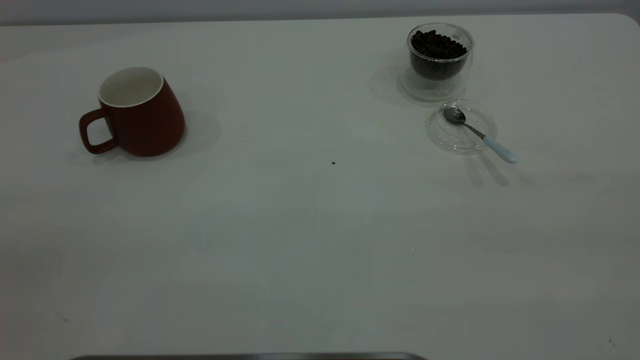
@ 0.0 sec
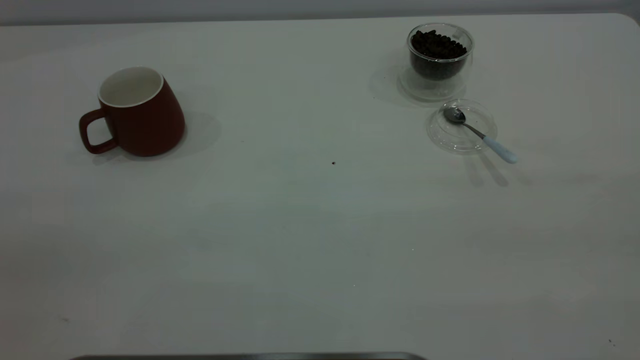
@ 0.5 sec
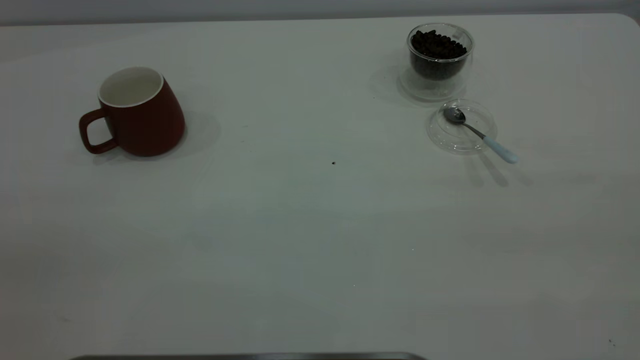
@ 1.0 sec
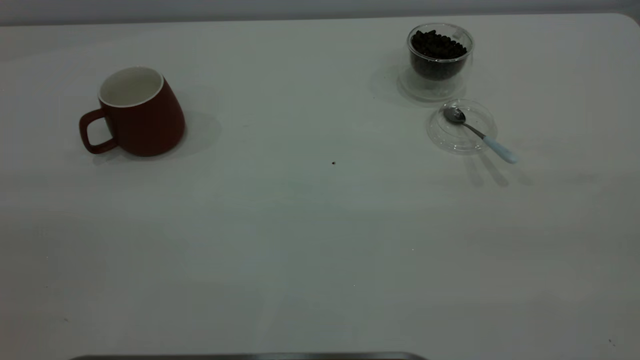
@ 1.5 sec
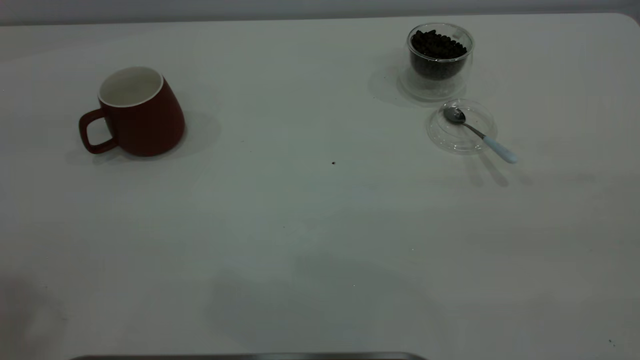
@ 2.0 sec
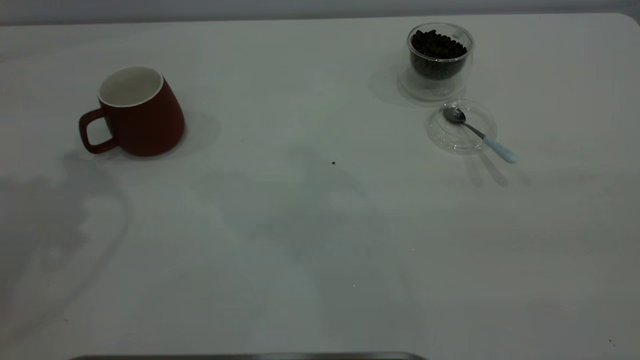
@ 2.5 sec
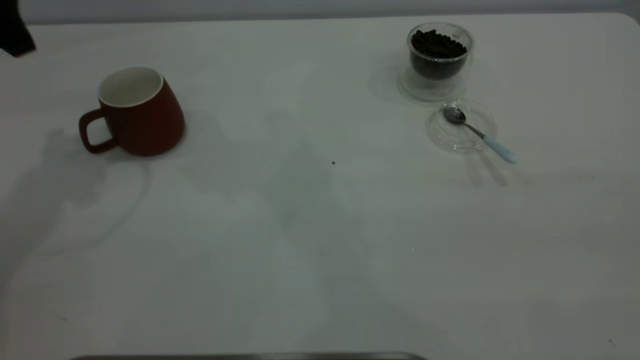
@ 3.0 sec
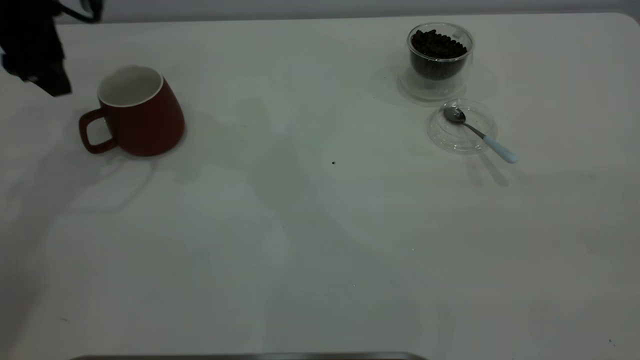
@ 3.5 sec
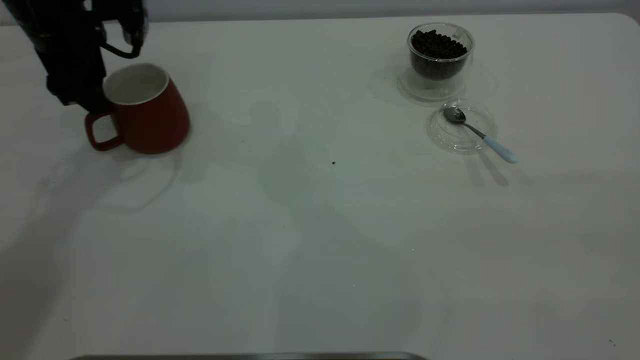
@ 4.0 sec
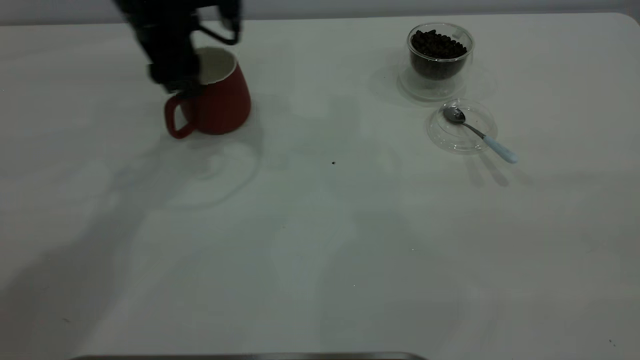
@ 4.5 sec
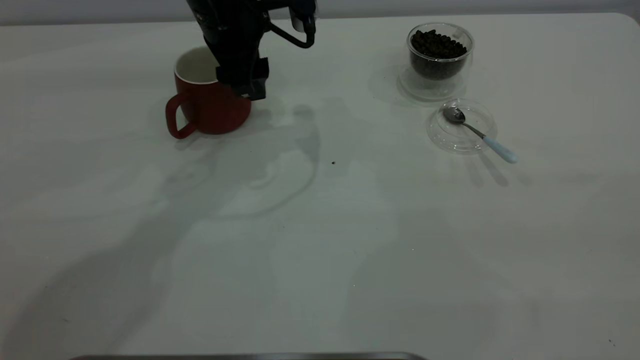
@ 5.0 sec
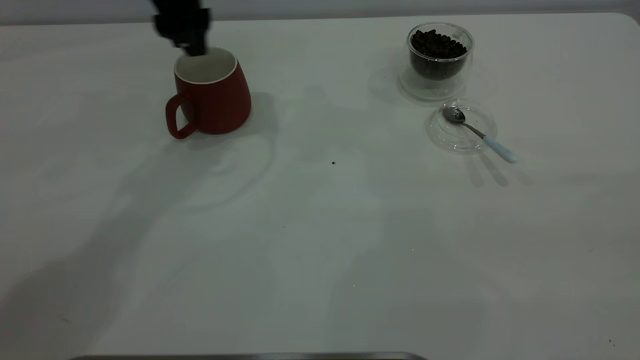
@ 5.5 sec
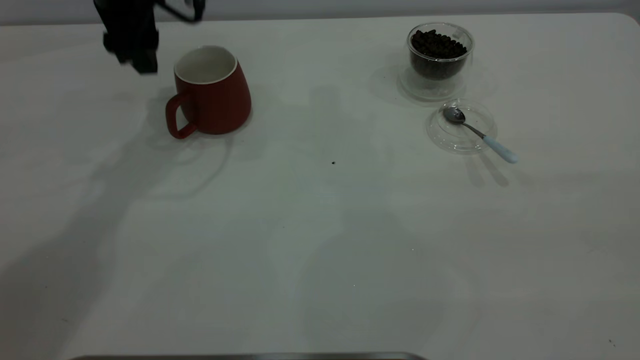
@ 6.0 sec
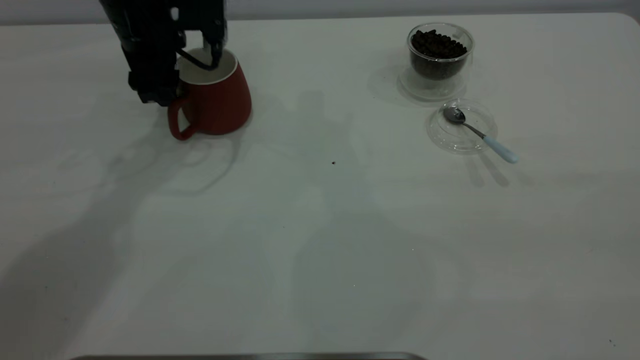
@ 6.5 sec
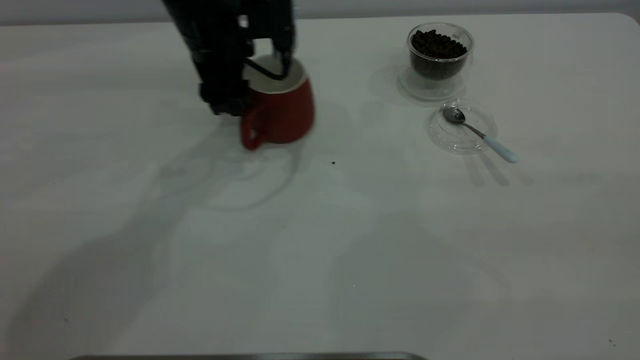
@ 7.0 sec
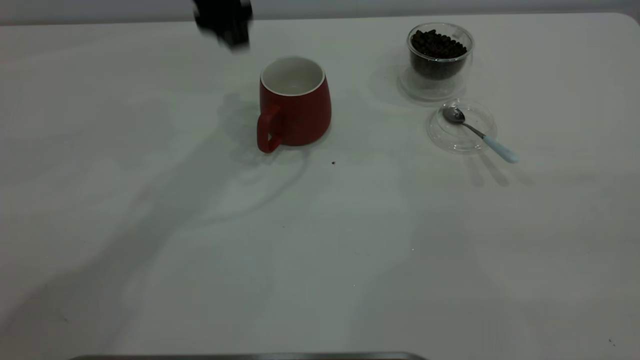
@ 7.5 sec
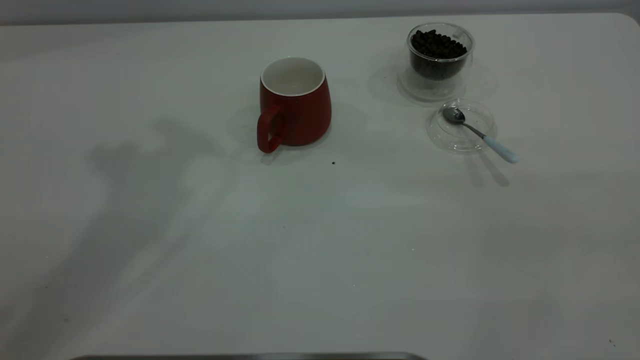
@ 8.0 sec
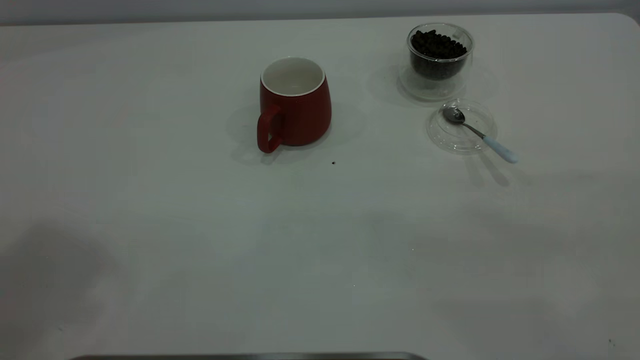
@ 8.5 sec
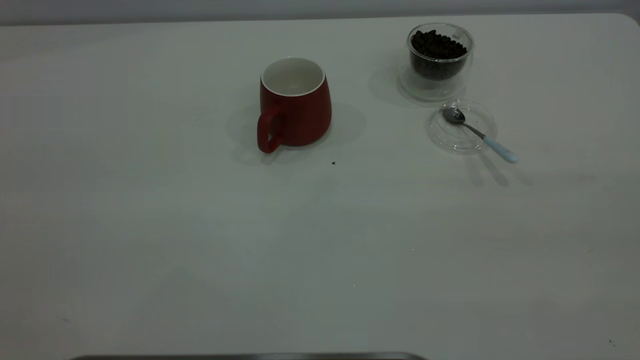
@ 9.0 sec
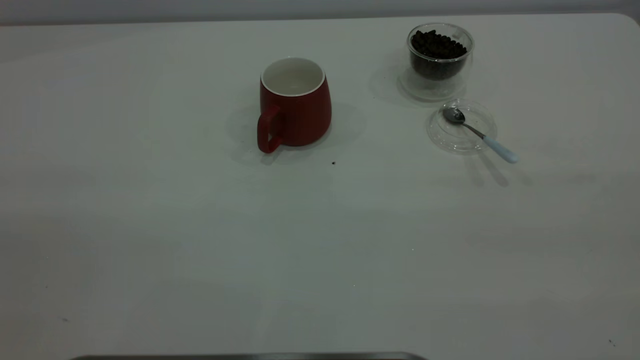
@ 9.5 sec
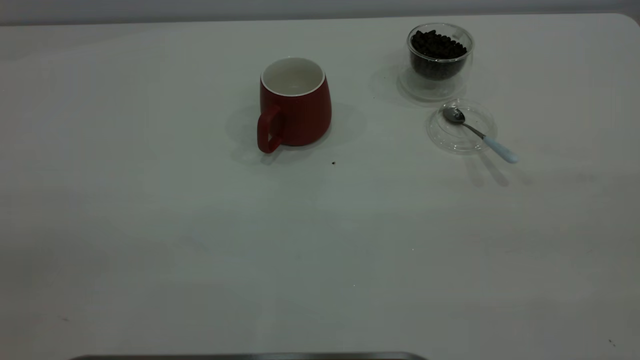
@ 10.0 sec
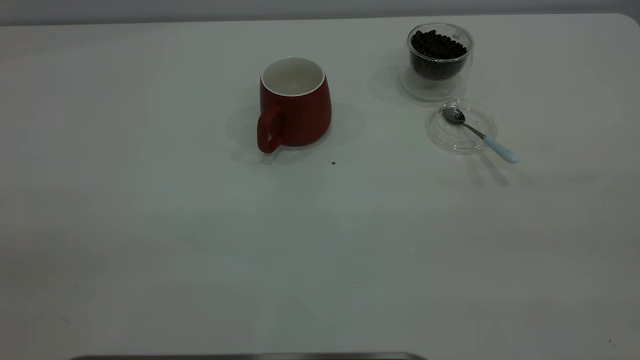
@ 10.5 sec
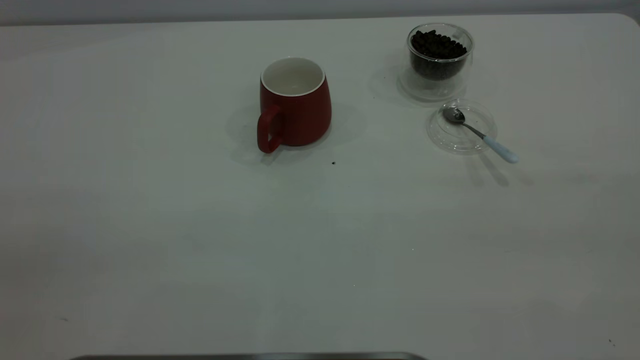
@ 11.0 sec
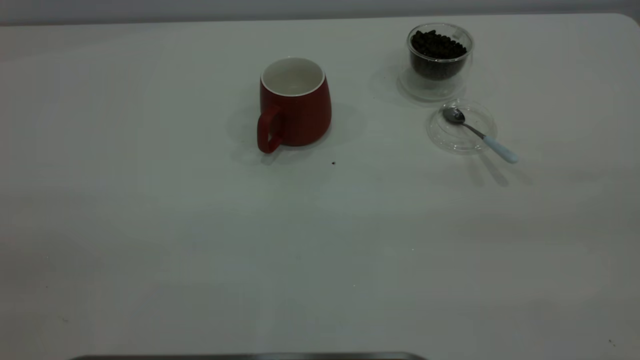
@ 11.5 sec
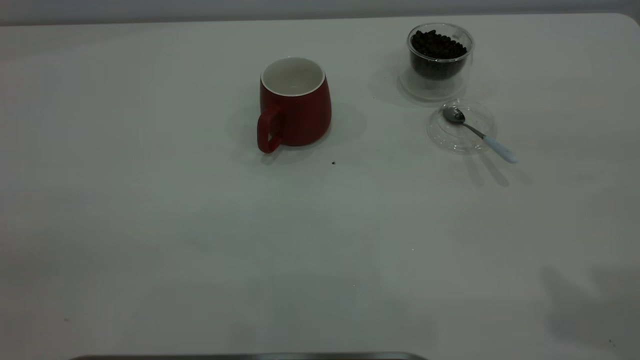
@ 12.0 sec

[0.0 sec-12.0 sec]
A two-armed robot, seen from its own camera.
Task of the whole recording: the left gripper place the red cup in the center of the table, the right gripper take the blue spoon from the cup lid and scoop out the coffee beans from the coffee cup and put them into the red cup, the right gripper put the spoon back into the cup lid.
Step, 0.0 sec to 7.0 sec: Move the cup to the center of view.
2.0 sec to 4.0 sec: The left gripper shifts about 35 cm forward and downward.
4.0 sec to 6.0 sec: The left gripper goes roughly 5 cm to the right.
6.0 sec to 8.0 sec: The left gripper goes about 30 cm upward and backward.

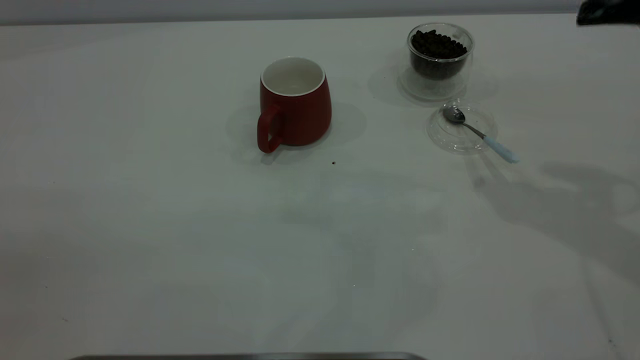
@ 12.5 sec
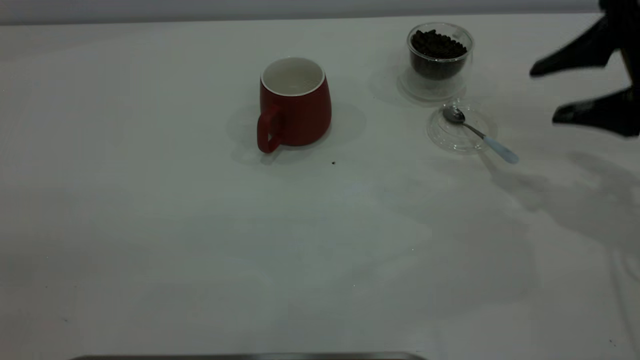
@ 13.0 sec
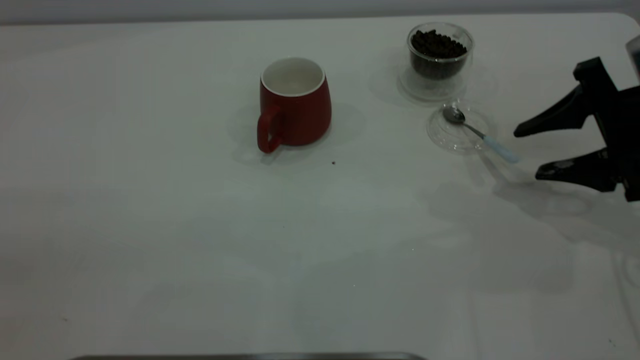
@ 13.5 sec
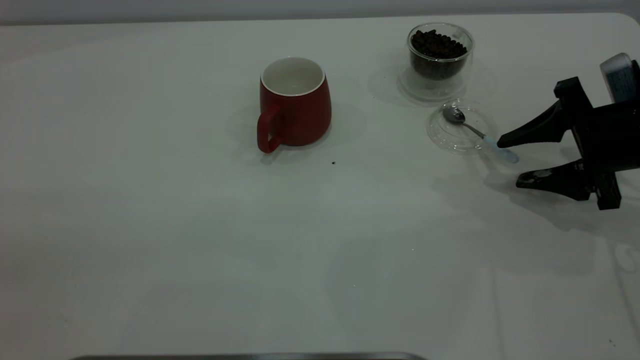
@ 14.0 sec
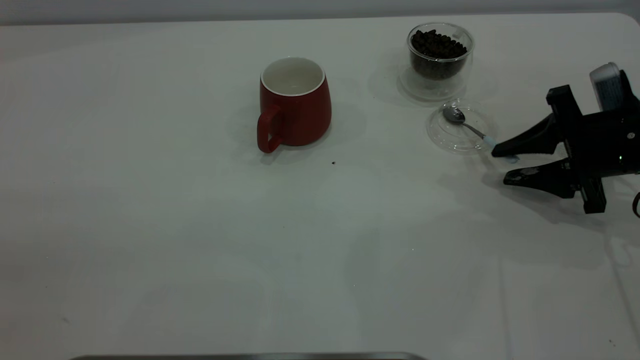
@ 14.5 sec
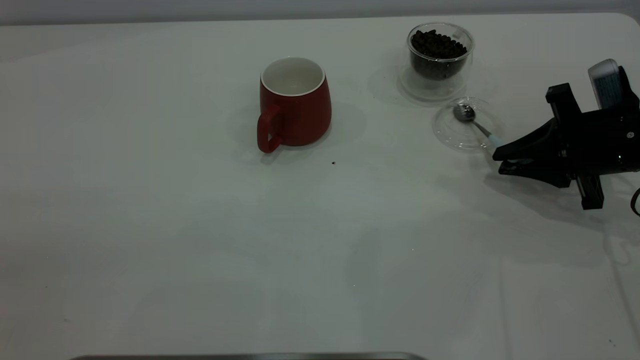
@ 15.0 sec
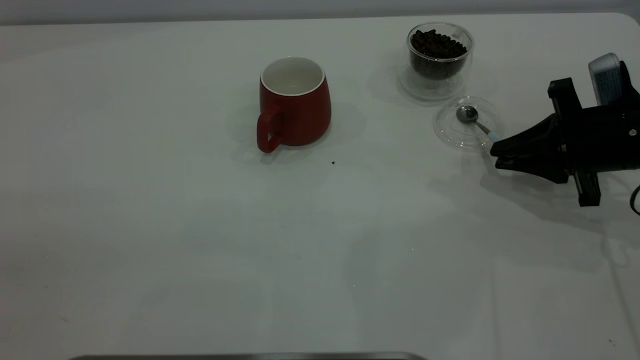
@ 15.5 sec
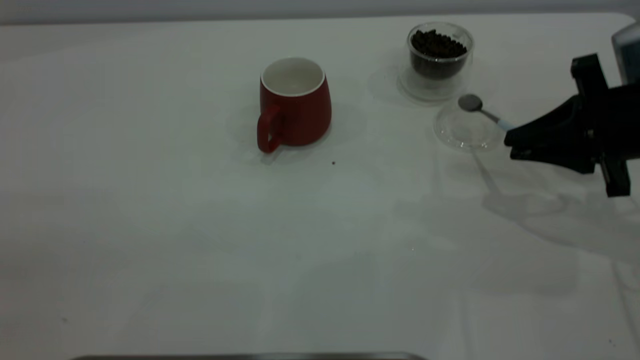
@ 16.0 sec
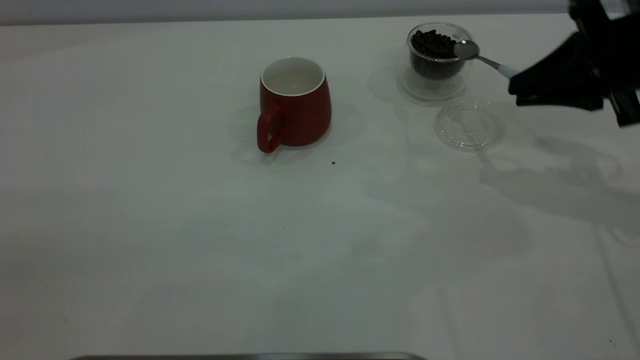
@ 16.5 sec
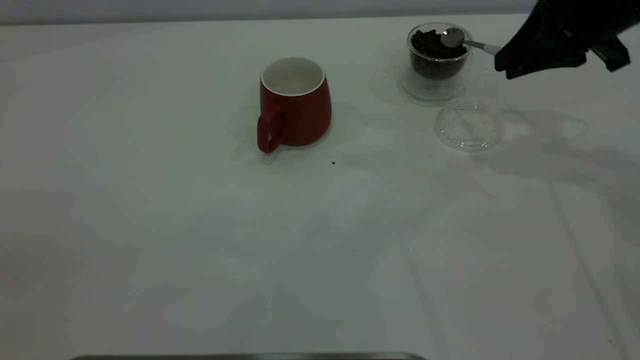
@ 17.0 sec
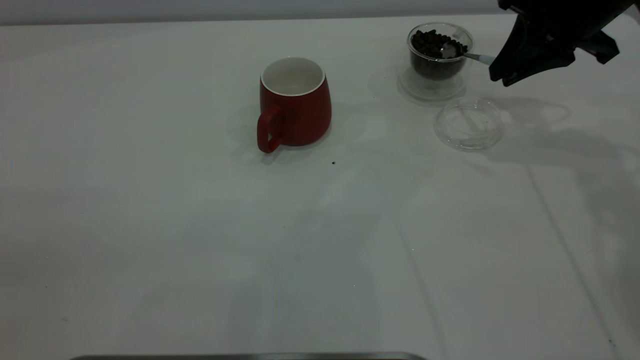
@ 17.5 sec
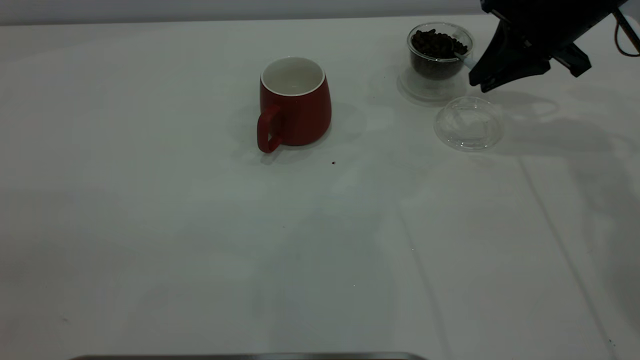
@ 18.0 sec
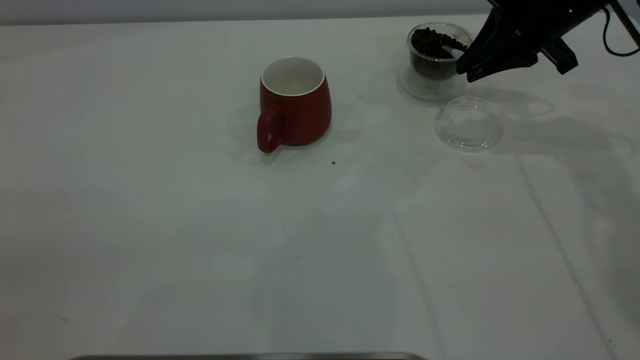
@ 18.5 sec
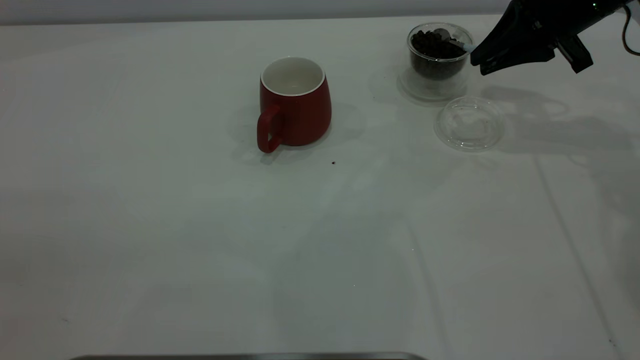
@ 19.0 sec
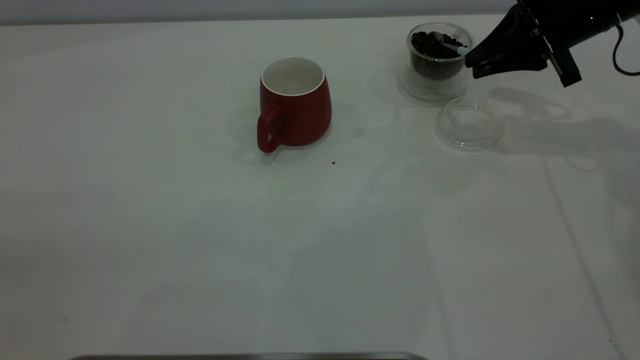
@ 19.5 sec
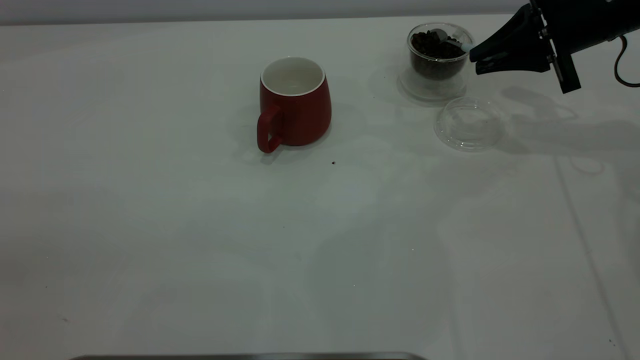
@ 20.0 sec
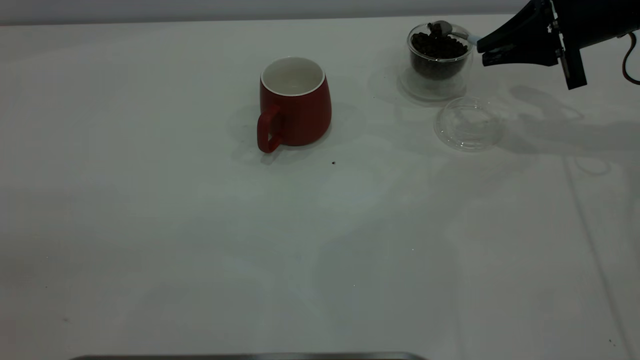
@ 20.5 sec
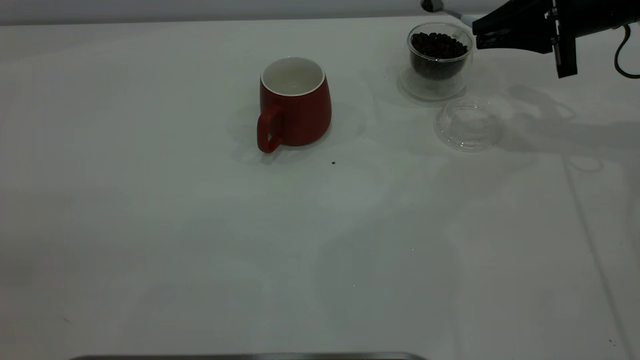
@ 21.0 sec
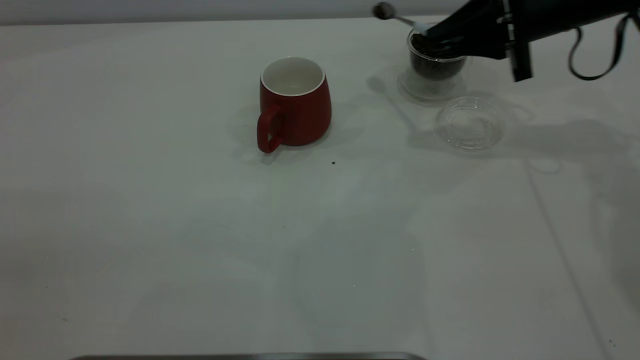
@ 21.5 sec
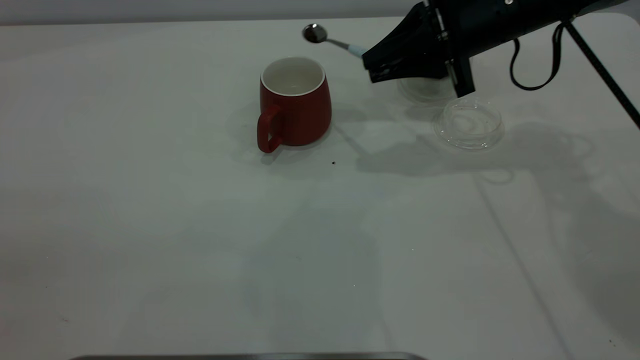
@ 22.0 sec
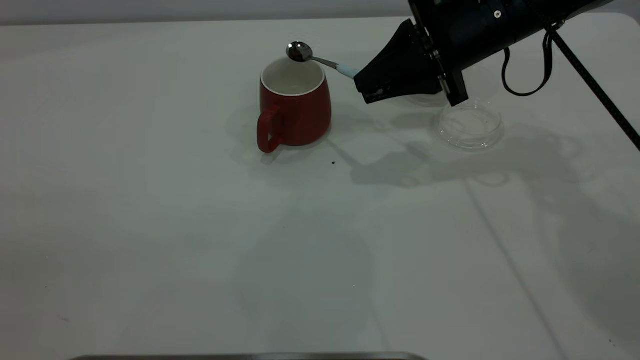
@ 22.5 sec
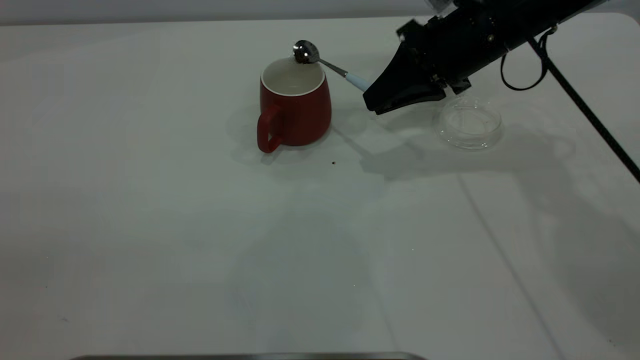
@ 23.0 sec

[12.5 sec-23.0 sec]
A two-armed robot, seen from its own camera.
Task of the whole recording: the left gripper place the red cup in the center of the table, the right gripper take the blue spoon from the cup lid and scoop out the coffee beans from the coffee cup and put them into the red cup, the right gripper put the spoon back into the cup lid.
Step, 12.5 sec to 15.5 sec: Pick up the spoon.
12.5 sec to 14.5 sec: The right gripper shifts approximately 20 cm downward, and closes up.
14.5 sec to 16.5 sec: The right gripper heads upward, covering about 10 cm, and closes.
16.5 sec to 19.0 sec: The right gripper moves forward, some 10 cm.
21.0 sec to 23.0 sec: The right gripper heads to the left, covering approximately 15 cm.
